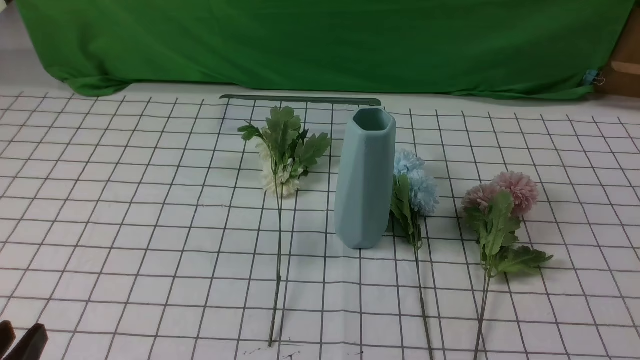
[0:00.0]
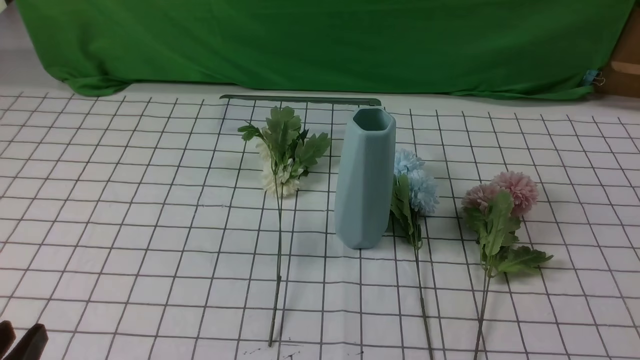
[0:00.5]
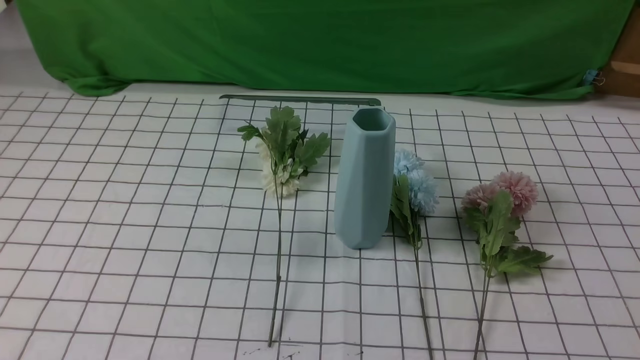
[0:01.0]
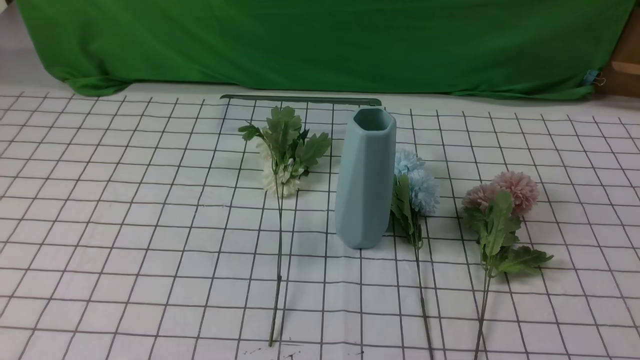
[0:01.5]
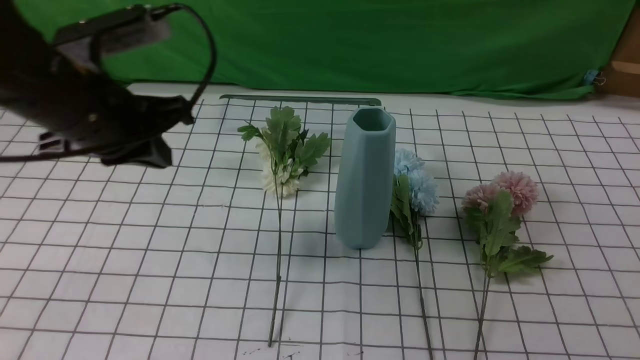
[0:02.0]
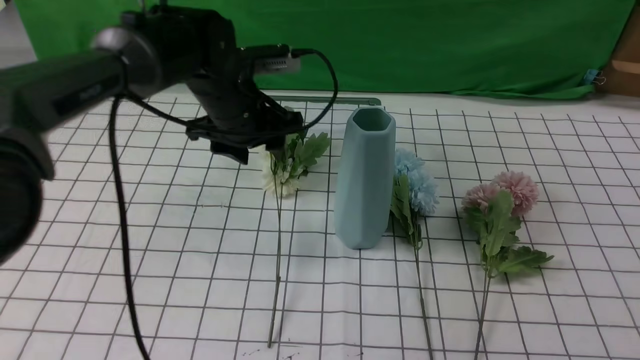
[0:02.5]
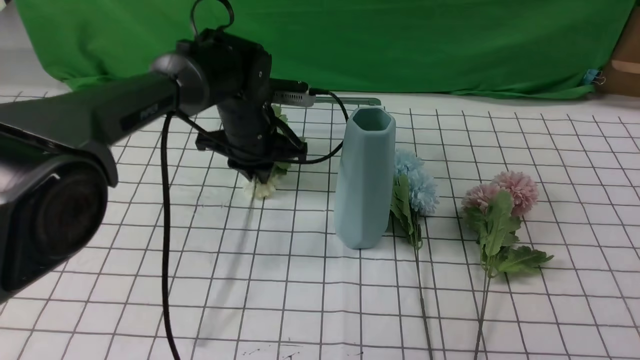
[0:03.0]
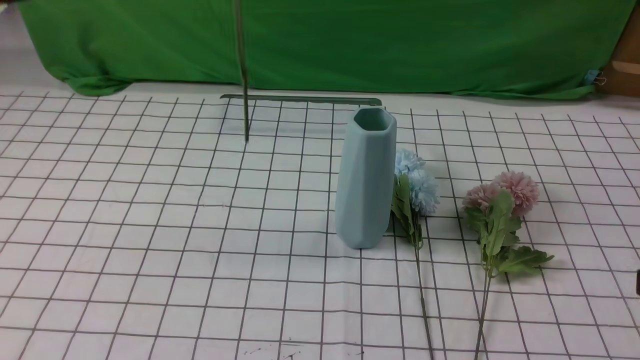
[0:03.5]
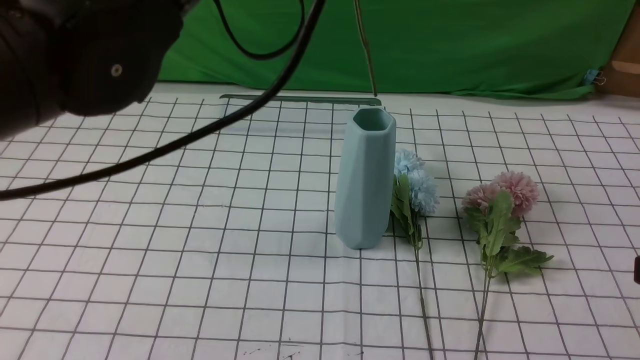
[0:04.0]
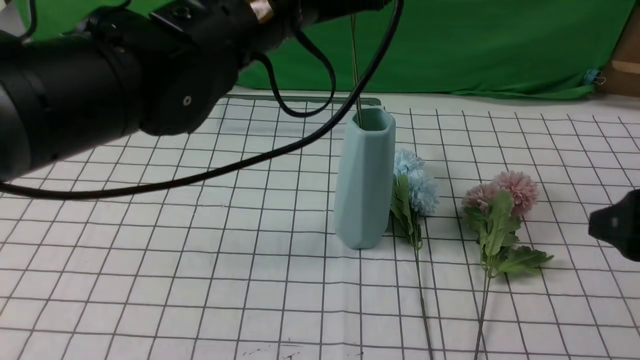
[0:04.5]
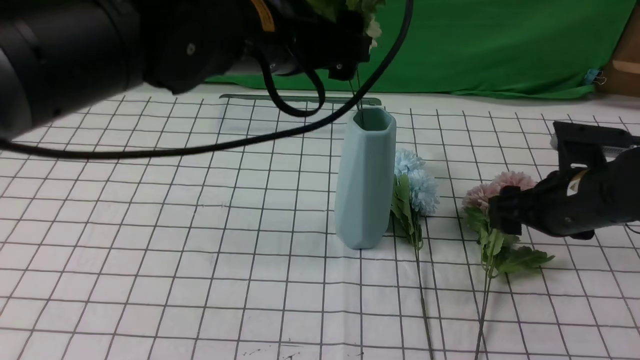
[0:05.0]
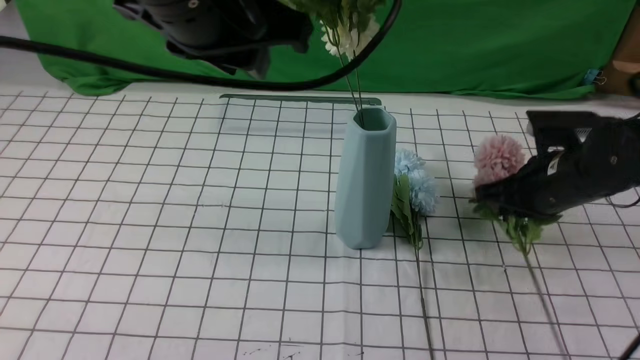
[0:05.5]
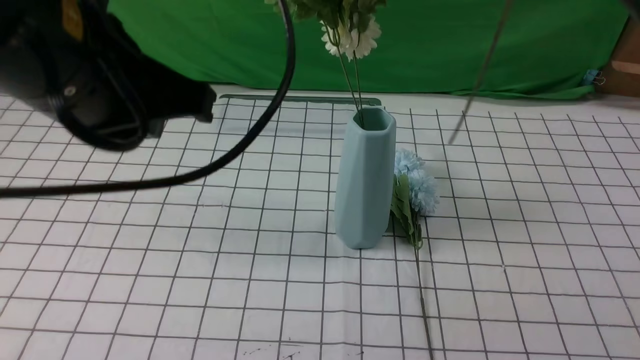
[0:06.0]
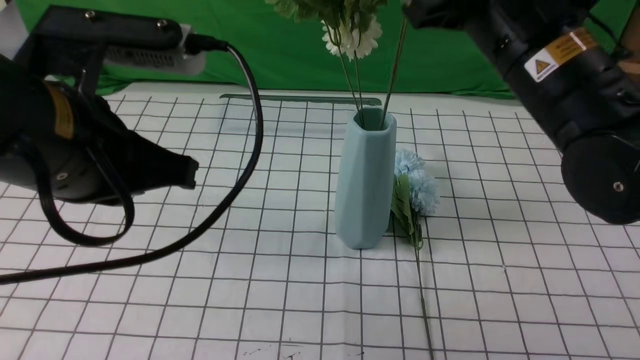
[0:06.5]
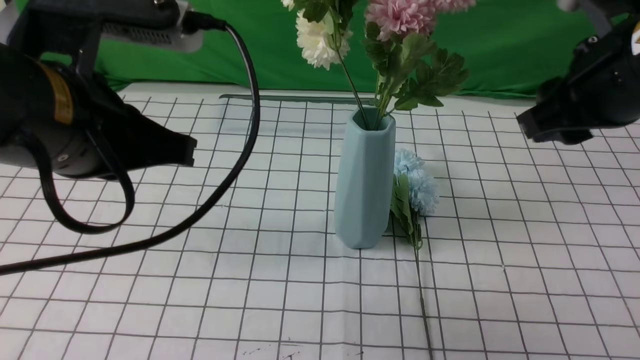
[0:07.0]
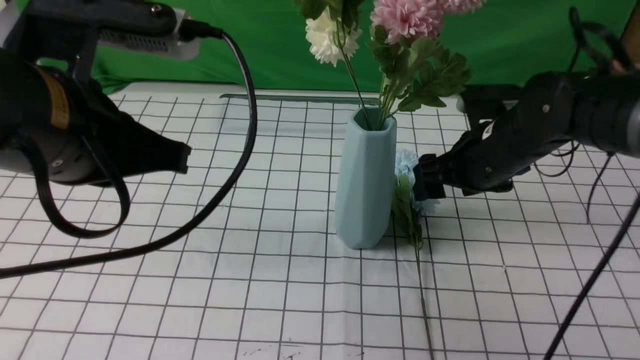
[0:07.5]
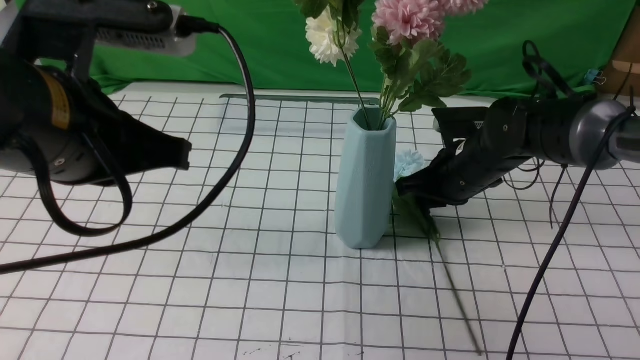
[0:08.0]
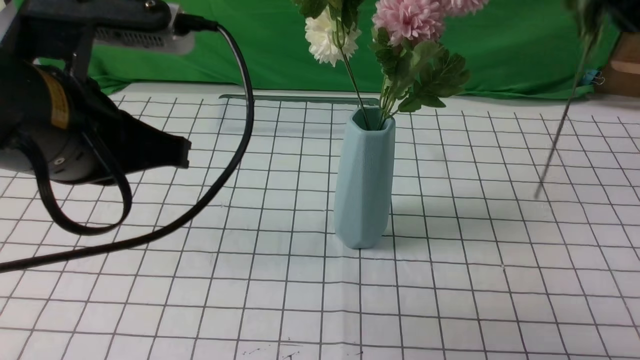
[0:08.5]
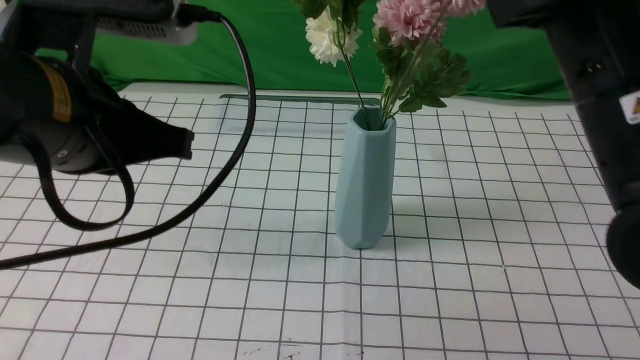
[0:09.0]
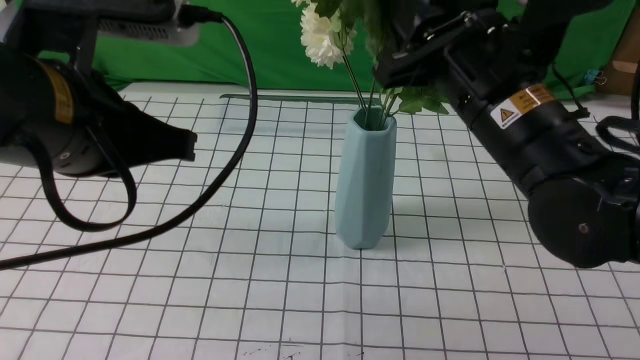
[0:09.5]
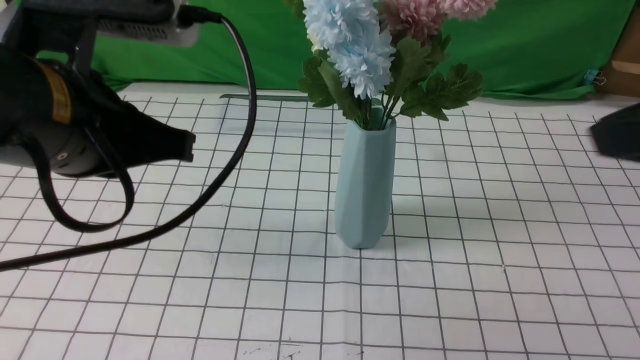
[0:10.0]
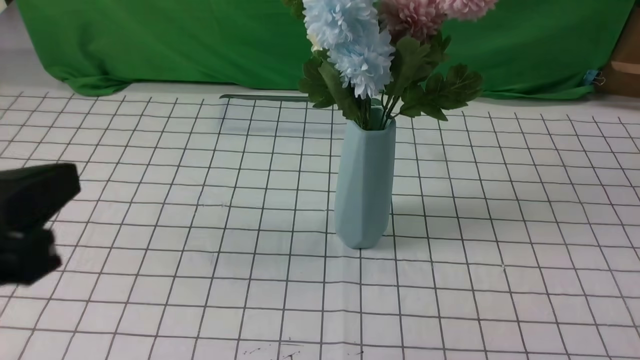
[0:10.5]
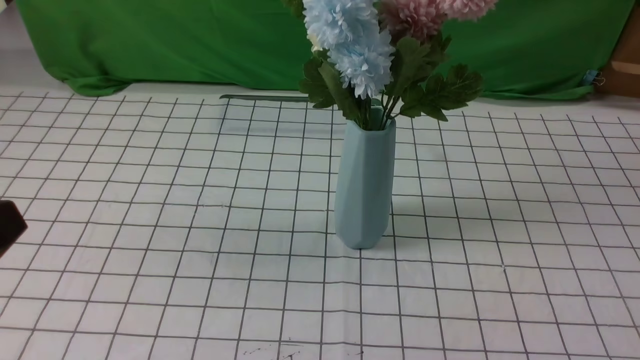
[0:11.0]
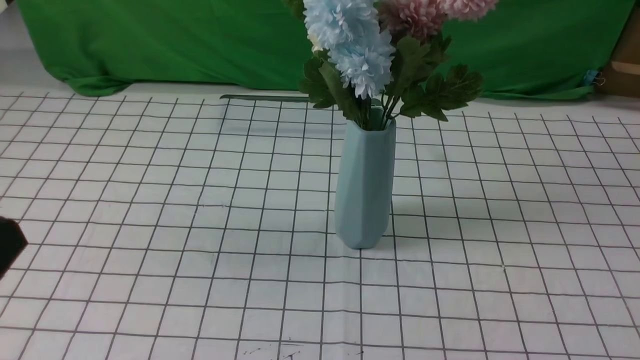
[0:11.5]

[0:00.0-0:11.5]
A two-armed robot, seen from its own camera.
Task of the whole recording: insert the flowers into the vase on the table with the white tablecloth.
Step, 0:00.0 to 0:03.0: use the left arm to grab a bunch of fresh flowers.
Step, 0:03.5 to 0:05.0: use the left arm to insert the flowers into the vase.
Step, 0:05.5 to 0:07.0: use the right arm to insert the flowers into the vase.
Step, 0:08.0 to 0:09.5: use the right arm to insert the flowers into the vase.
0:00.0 to 0:02.0: The left gripper moves forward and upward, approximately 30 cm, and closes, while the right gripper goes about 10 cm upward.
0:02.0 to 0:04.0: The right gripper shifts about 5 cm forward, and opens its fingers, while the left gripper moves upward and to the right, approximately 15 cm, and opens, then closes once more.
0:04.0 to 0:06.0: The left gripper goes roughly 10 cm backward and to the left, and opens and closes again. The right gripper travels forward, to the left and upward by roughly 20 cm, and closes its fingers.
0:06.0 to 0:07.5: The right gripper travels downward and forward by roughly 25 cm, and opens up.
0:07.5 to 0:09.5: The right gripper travels upward and backward by some 15 cm, and closes up.
0:09.5 to 0:11.5: The left gripper shifts about 20 cm backward, to the left and downward, while the right gripper heads backward and to the right, covering some 30 cm, and closes up.

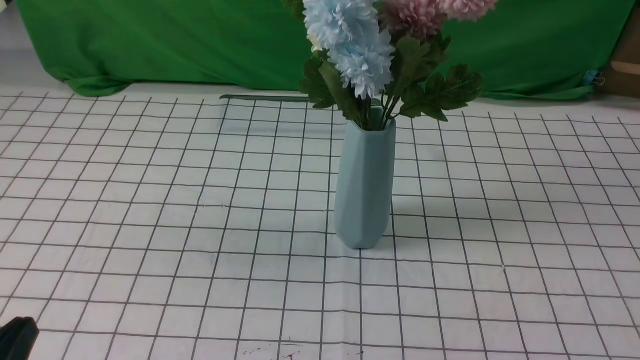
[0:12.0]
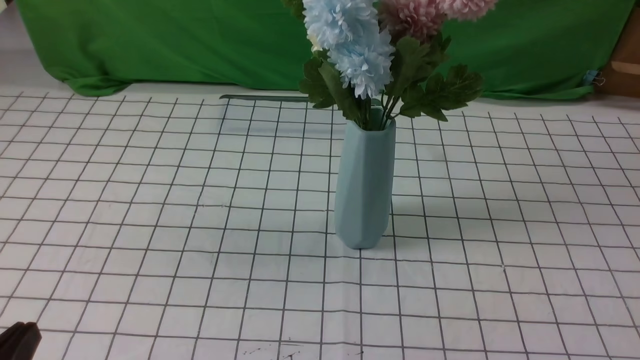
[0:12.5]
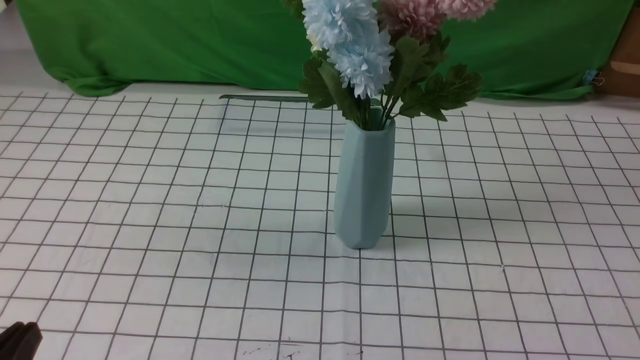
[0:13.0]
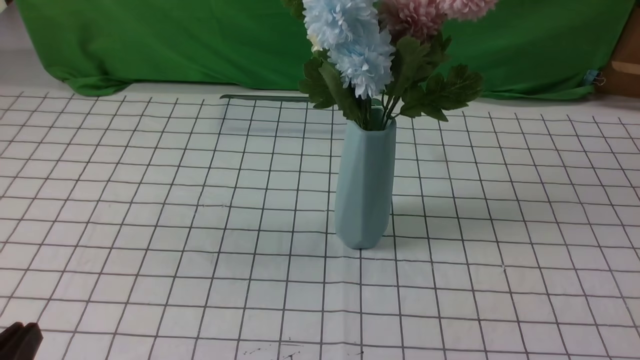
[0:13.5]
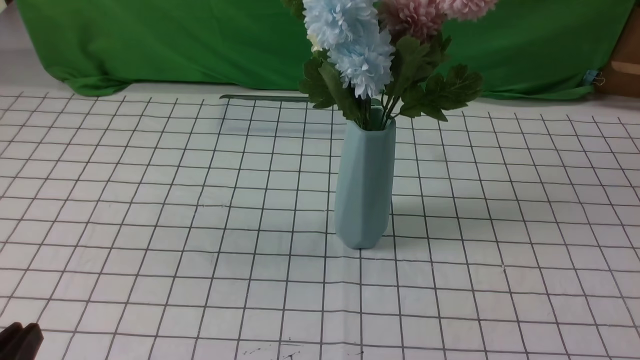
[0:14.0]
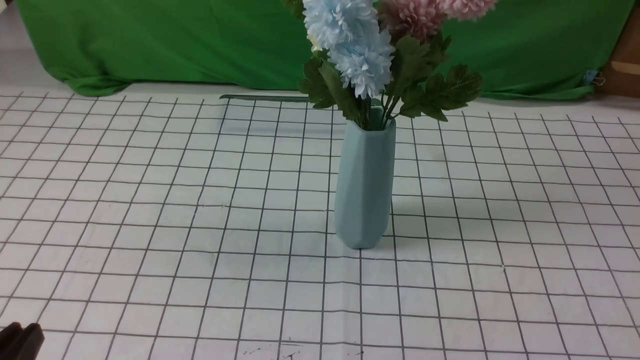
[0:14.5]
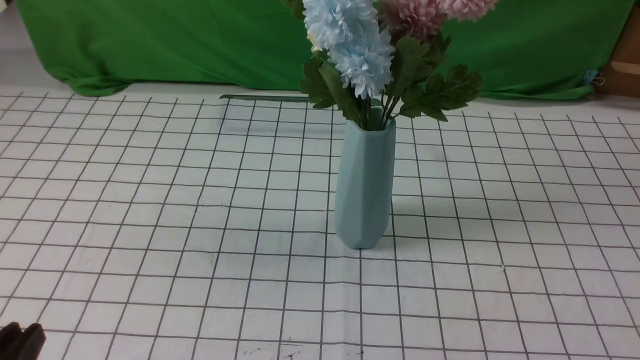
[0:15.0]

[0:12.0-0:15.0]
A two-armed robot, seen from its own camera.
Task of the whole recording: insert the flowers into the vase on the table with the white tablecloth.
0:13.5 to 0:15.0: Both grippers stay about where they are.
